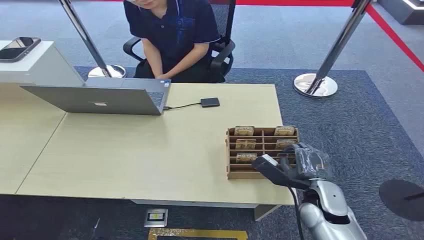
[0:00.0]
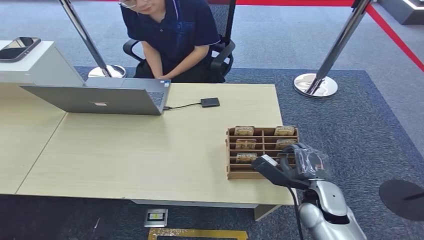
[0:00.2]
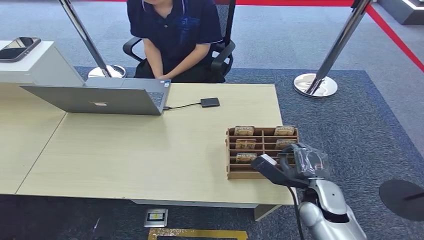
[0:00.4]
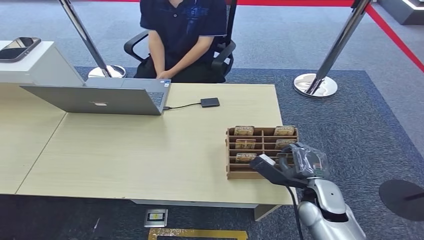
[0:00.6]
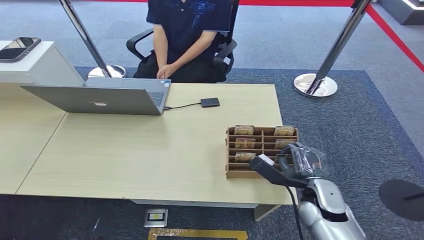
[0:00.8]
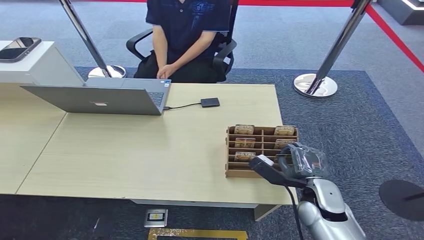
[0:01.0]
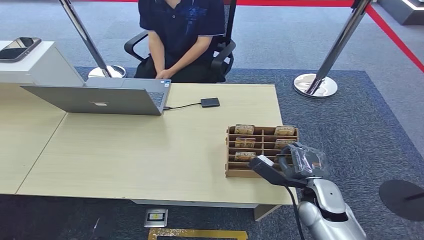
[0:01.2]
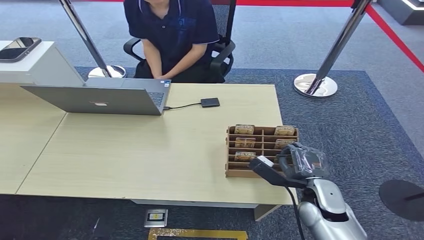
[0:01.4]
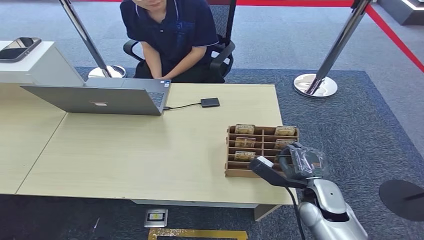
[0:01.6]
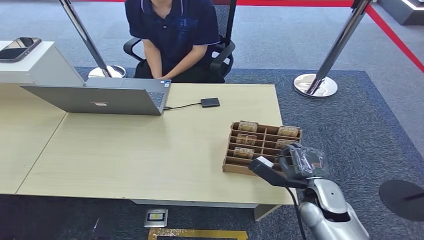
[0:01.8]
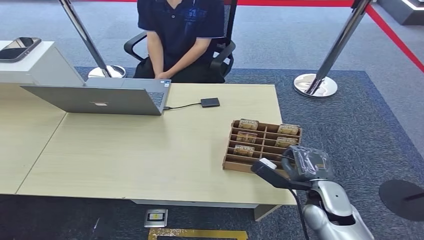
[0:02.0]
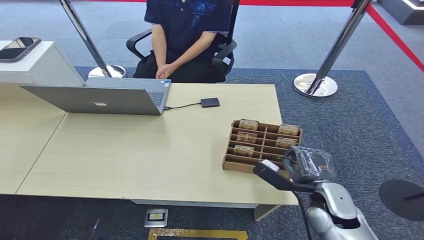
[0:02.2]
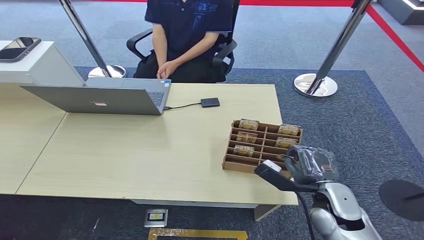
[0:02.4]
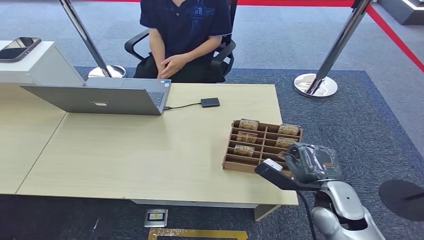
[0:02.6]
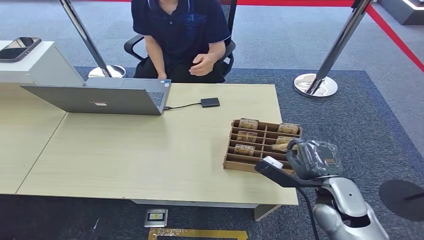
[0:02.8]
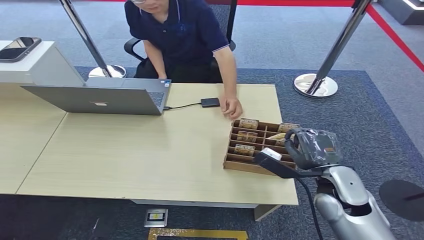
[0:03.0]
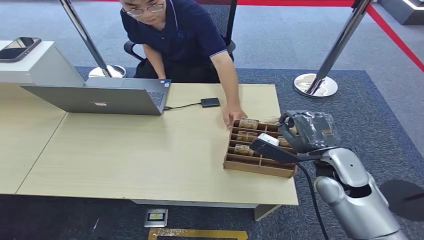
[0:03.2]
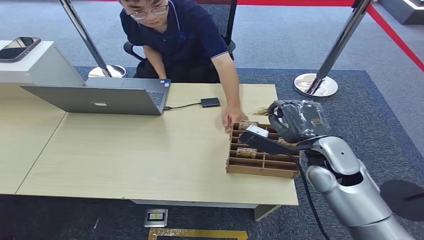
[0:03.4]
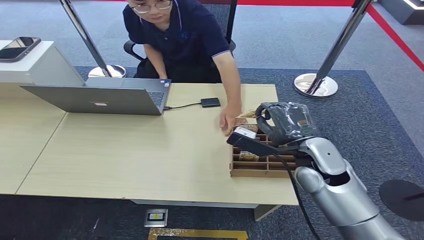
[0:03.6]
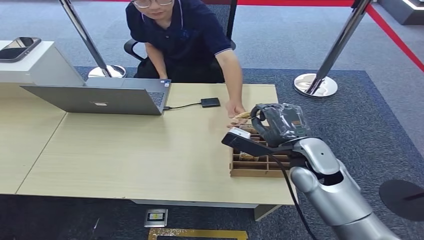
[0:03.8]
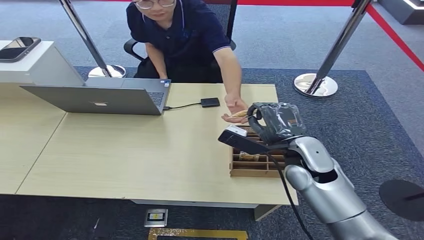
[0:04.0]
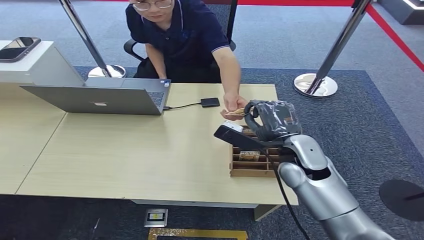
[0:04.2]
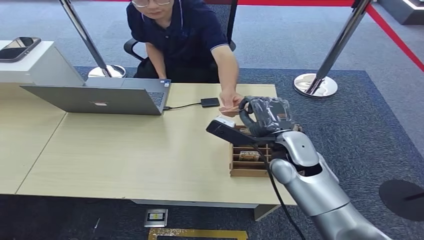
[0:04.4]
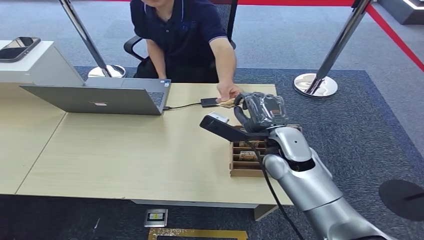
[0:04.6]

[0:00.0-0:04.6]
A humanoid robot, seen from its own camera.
Step, 0:00.0 to 0:02.8: Pick up the key card from the card box.
Step, 0:03.2 to 0:04.6: Hand the key card to the target.
0:01.6 to 0:03.0: The right hand heads upward, covering some 5 cm.
0:03.0 to 0:04.6: The right hand shifts about 15 cm to the left, forward and upward.
